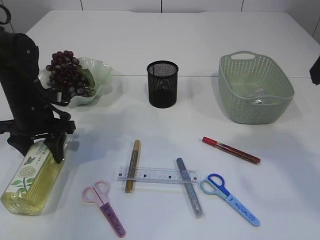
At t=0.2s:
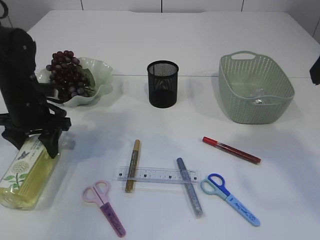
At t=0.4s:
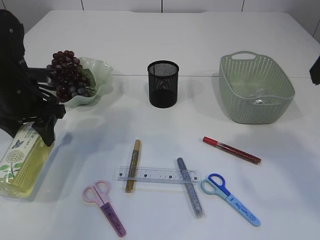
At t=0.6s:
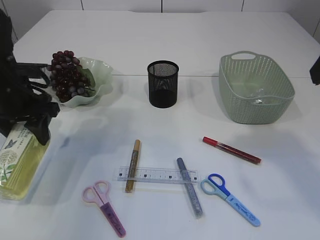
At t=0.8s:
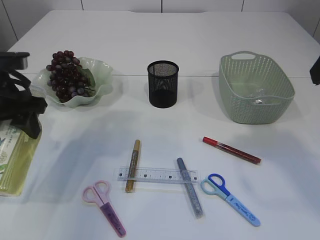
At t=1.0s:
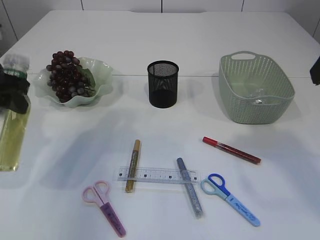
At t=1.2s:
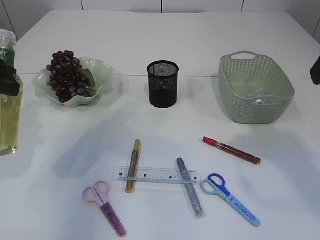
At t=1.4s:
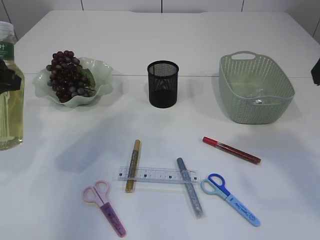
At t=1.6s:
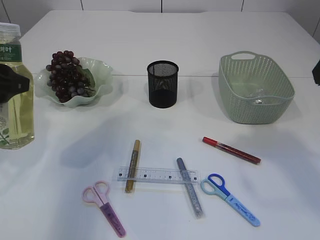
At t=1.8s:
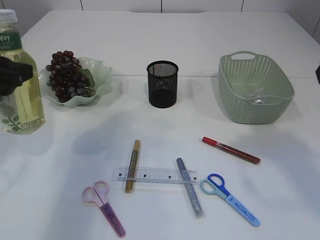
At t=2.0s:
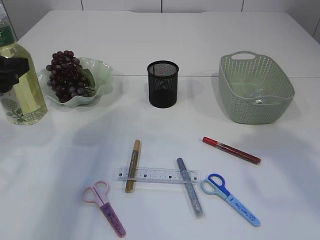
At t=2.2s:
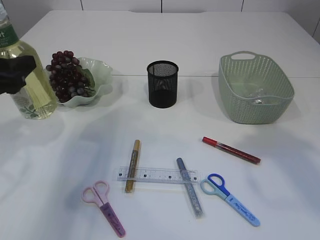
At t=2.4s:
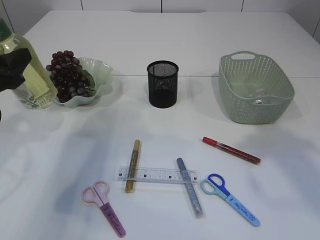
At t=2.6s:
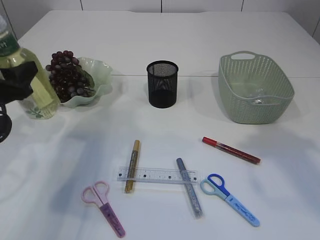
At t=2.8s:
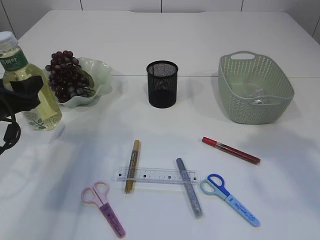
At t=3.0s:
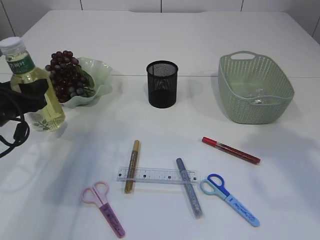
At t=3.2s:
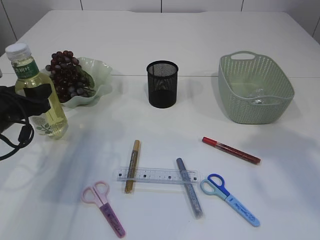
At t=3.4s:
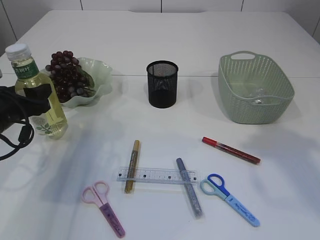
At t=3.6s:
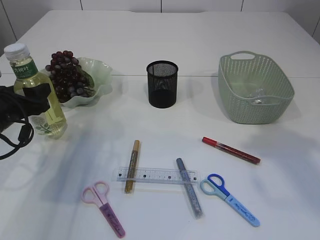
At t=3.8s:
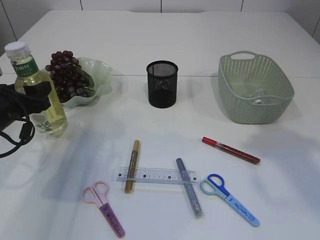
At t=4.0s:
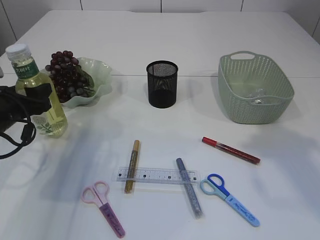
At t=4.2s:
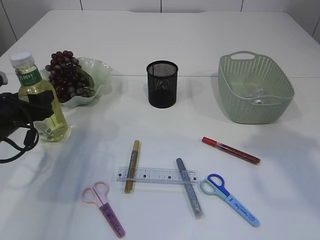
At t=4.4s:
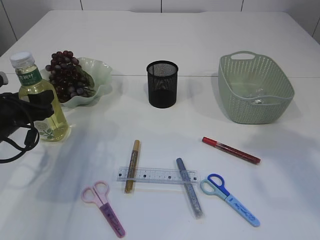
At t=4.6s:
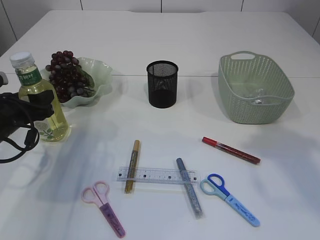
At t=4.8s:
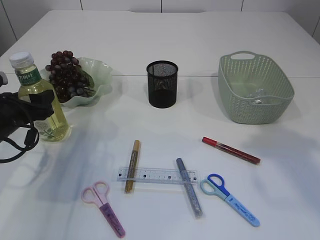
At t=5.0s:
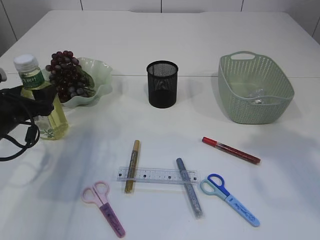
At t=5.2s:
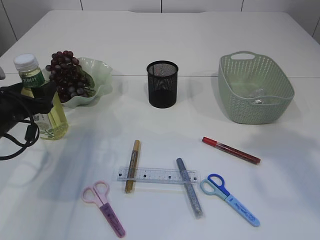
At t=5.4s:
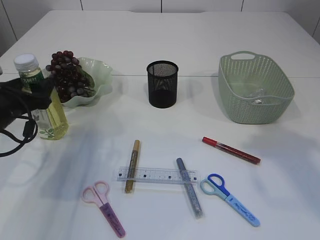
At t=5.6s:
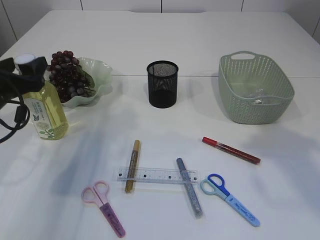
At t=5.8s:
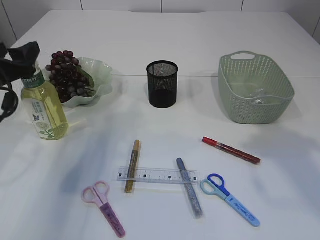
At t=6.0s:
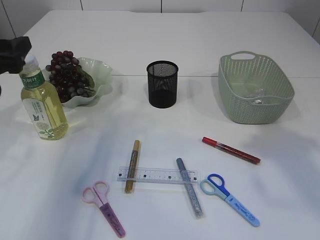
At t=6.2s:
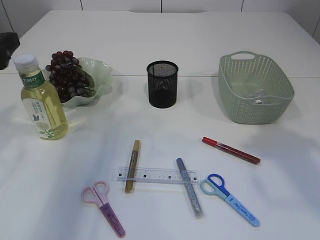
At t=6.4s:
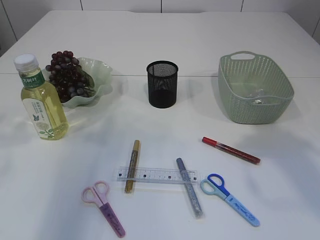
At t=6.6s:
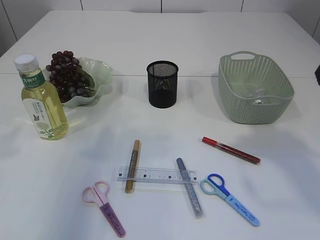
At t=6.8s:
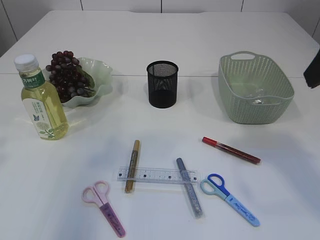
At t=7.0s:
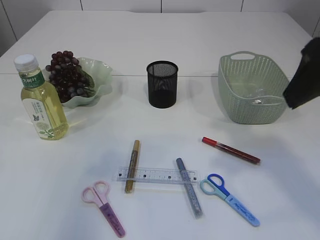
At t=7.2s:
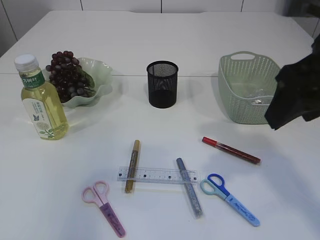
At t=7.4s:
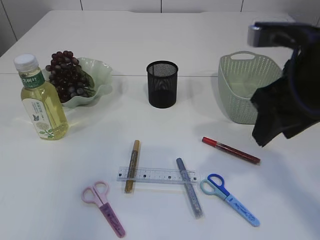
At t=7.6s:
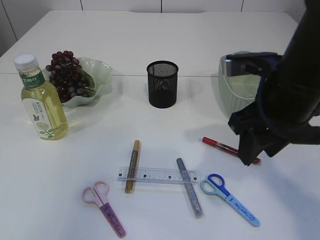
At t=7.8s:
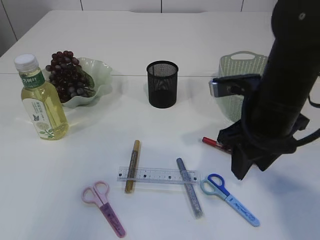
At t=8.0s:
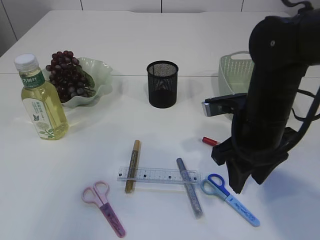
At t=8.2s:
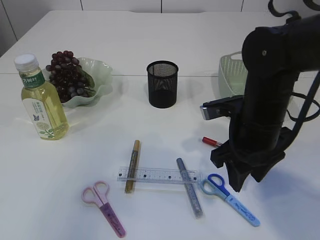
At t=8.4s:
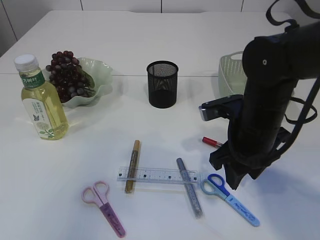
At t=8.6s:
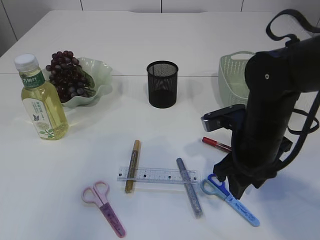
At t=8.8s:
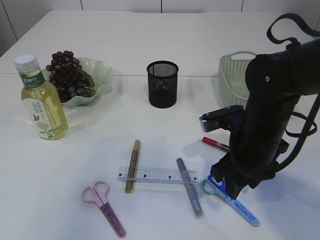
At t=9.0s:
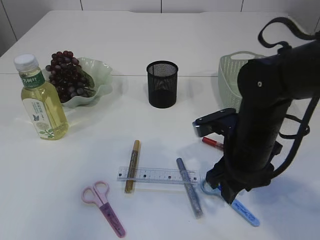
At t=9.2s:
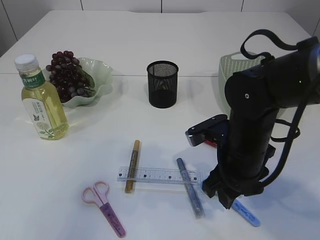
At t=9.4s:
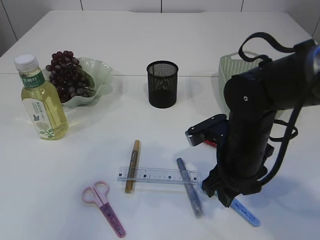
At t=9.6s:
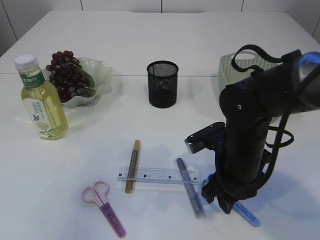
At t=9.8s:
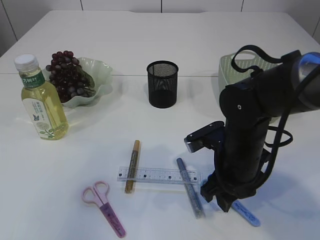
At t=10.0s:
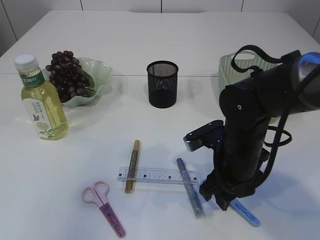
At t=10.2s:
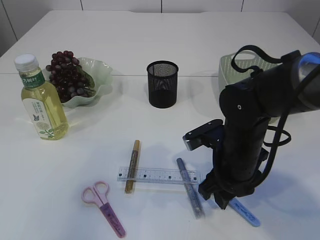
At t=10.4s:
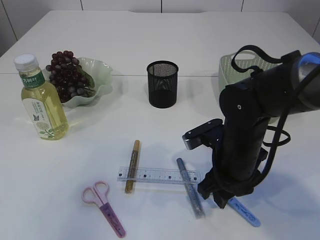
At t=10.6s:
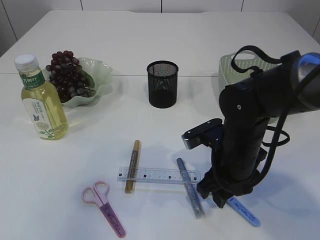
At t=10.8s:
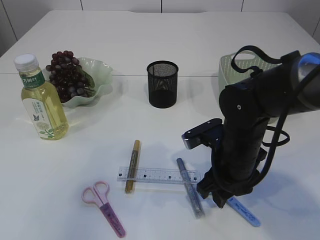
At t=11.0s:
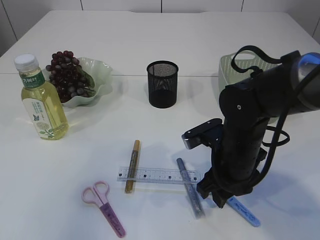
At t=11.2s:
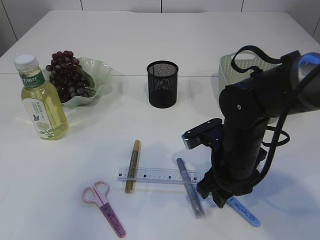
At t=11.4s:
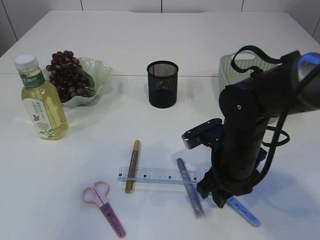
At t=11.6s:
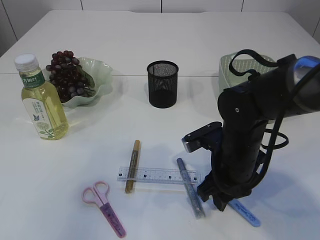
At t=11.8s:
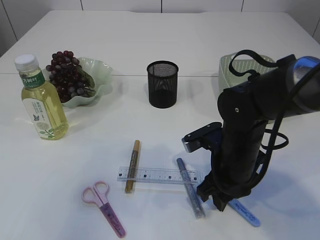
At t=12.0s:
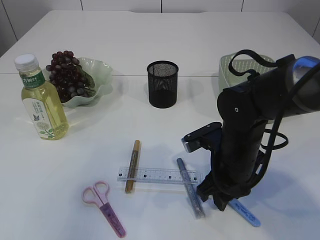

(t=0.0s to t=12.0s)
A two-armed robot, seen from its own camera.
Step, t=0.8s - t=6.0s: Place the bottle.
t=0.0s - t=1.6s: The left gripper travels upward and backward by roughly 15 cm.
t=1.6s - t=3.0s: The left gripper travels downward by about 10 cm.
t=3.0s - t=4.4s: There are only small adjustments of the grippers.
t=4.4s - t=6.0s: The left gripper is displaced upward by approximately 10 cm.
t=6.0s - t=7.6s: The left gripper is displaced backward and upward by about 20 cm; the right gripper heads downward and to the left, covering approximately 15 cm.
t=7.6s - t=9.0s: The right gripper moves downward, about 10 cm.
t=9.0s - t=10.4s: The grippers move only a little.
t=10.4s - t=12.0s: Both grippers stay put.

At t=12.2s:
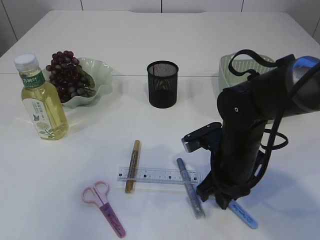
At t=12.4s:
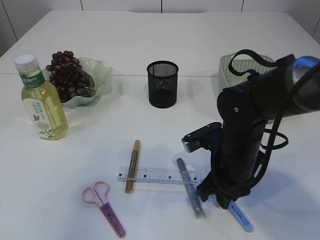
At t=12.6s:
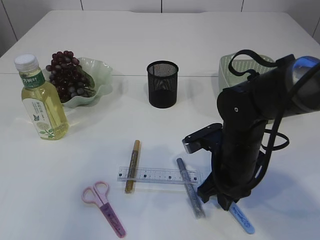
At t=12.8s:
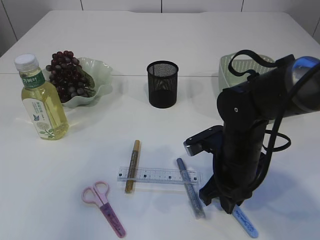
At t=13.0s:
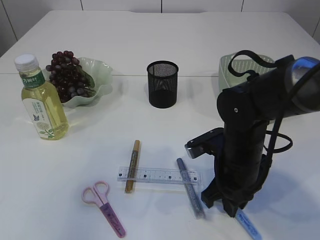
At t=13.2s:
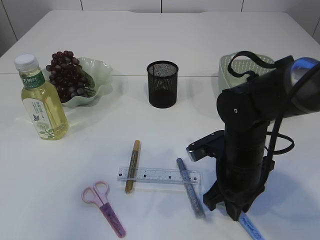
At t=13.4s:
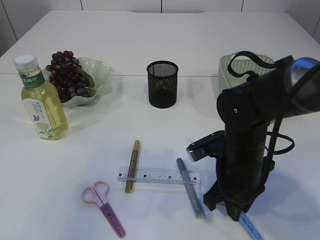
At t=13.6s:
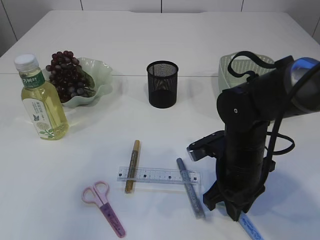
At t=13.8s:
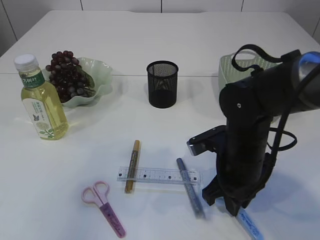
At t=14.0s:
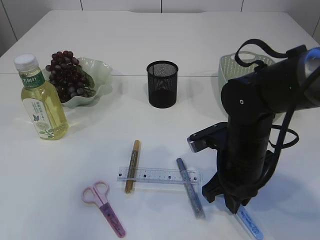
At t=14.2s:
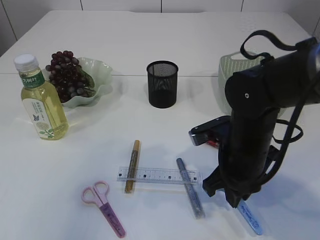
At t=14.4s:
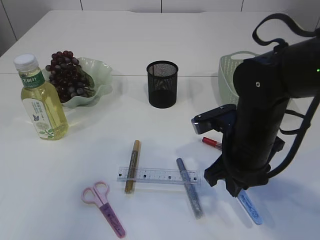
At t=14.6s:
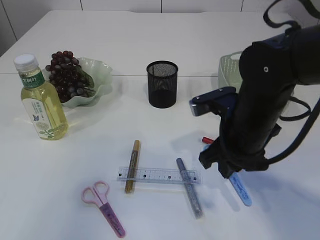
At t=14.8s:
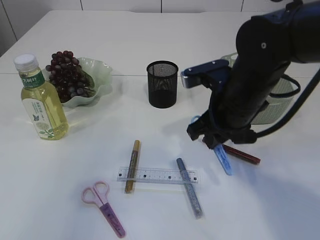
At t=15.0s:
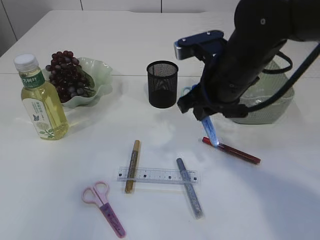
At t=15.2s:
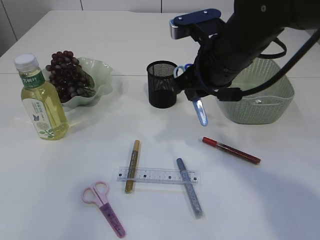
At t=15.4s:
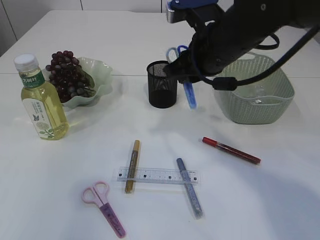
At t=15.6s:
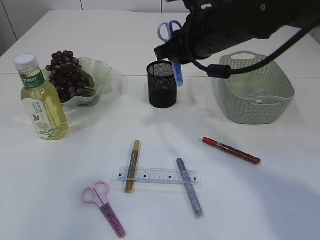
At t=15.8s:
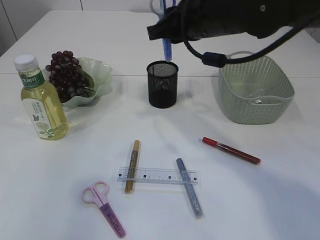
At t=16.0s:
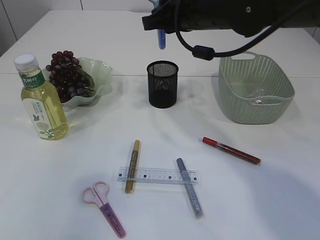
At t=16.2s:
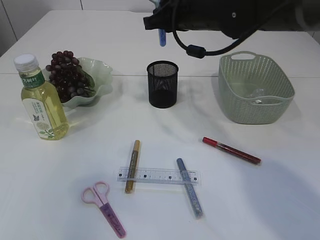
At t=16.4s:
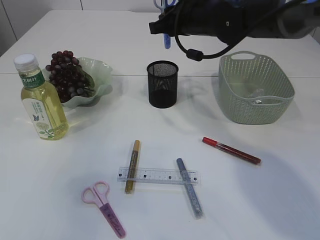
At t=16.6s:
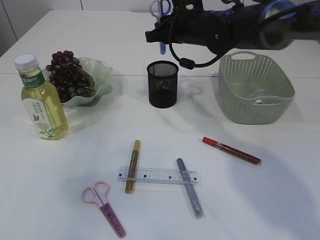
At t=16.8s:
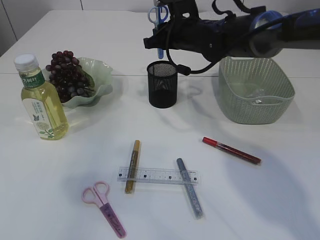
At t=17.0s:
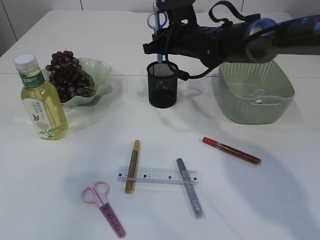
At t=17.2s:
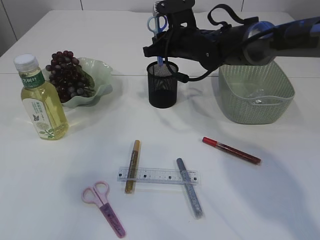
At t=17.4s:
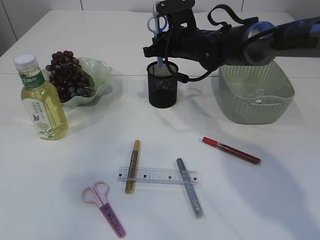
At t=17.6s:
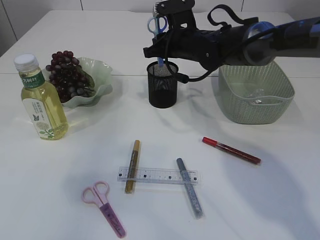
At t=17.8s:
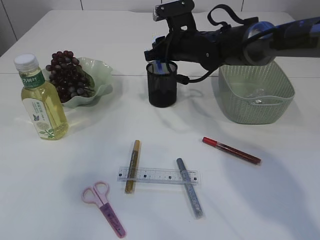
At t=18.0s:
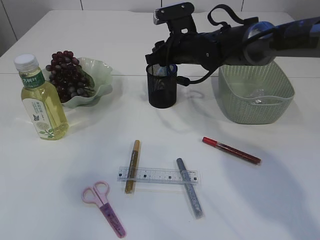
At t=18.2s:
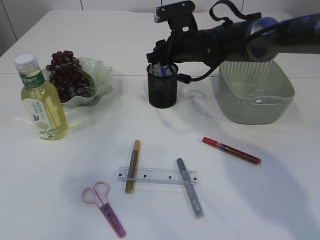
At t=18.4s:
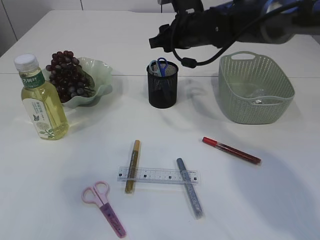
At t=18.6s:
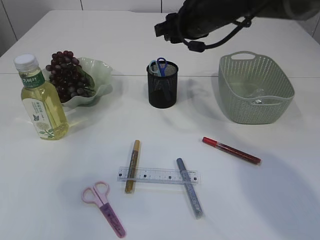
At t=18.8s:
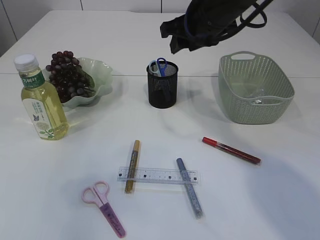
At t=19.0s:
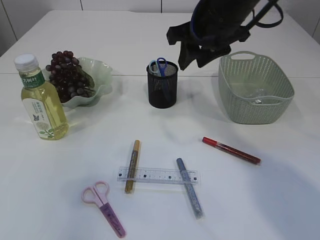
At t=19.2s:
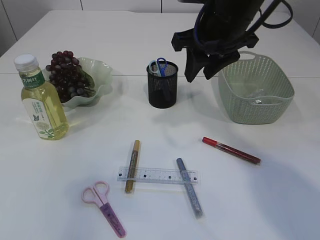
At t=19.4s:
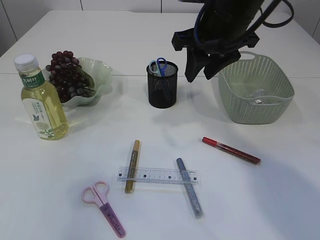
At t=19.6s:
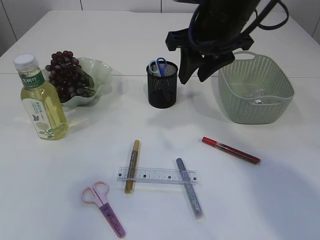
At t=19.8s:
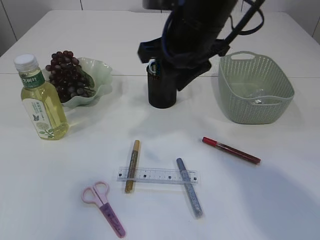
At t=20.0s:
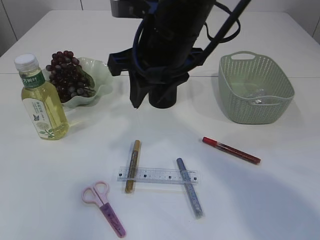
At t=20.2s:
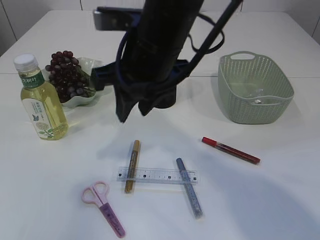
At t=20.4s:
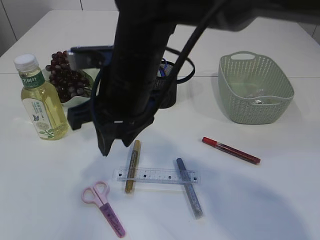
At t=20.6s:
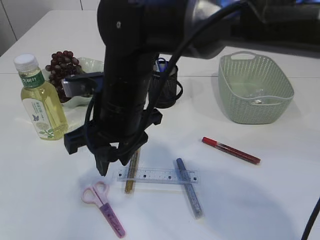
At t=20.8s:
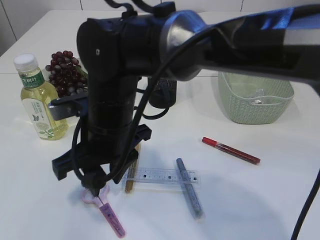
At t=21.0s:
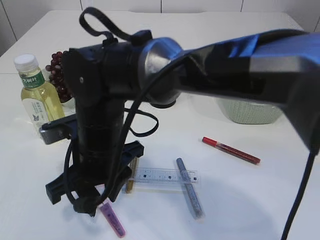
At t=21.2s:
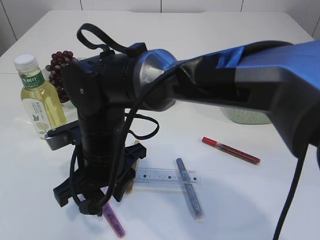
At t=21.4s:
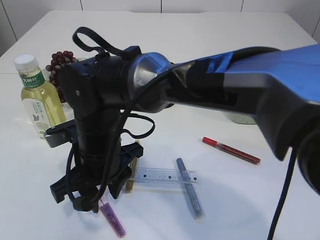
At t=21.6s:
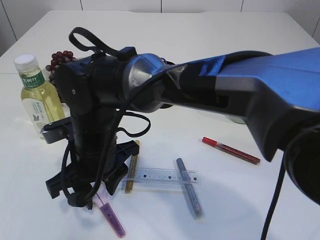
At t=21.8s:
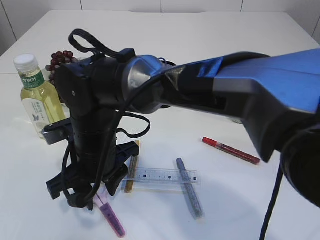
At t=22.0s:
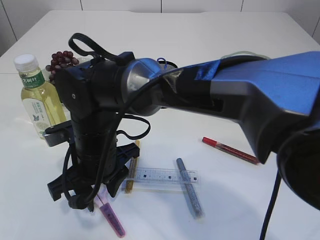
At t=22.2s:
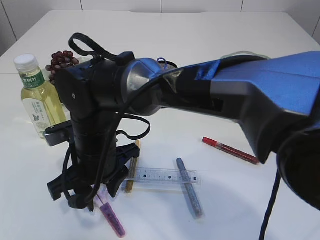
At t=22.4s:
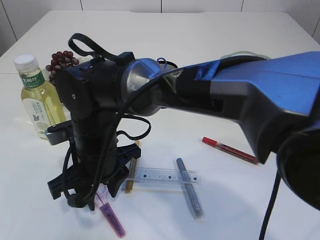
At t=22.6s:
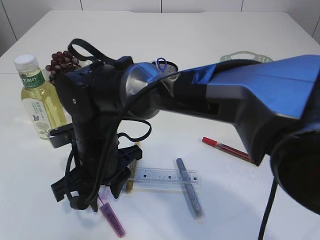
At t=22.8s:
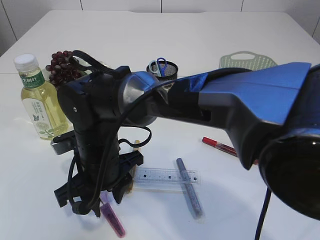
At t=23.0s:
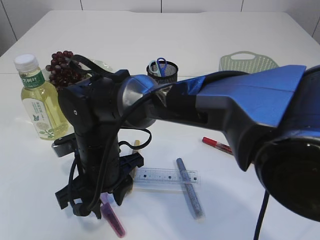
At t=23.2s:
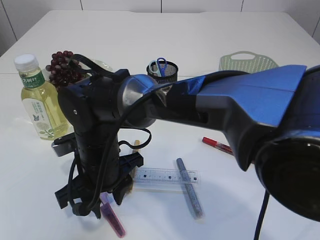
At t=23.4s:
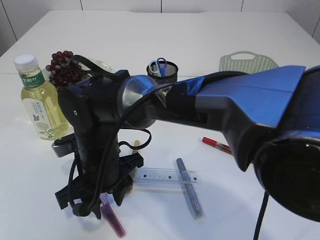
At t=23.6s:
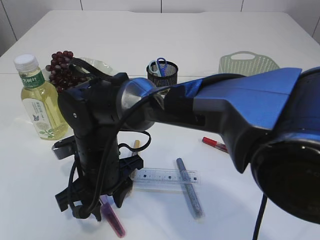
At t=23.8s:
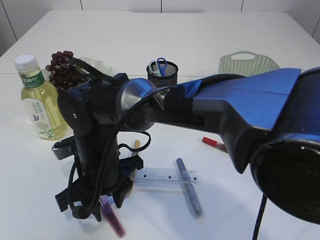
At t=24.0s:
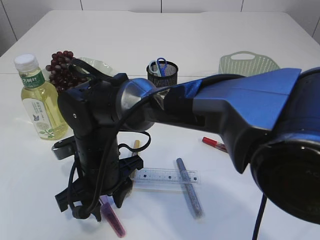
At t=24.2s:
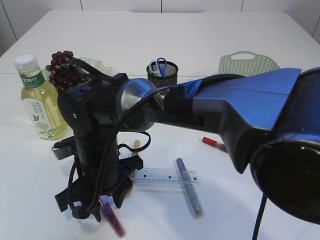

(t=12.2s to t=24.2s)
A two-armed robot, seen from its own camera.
Step, t=12.2s - t=14.6s: pick up the blue scissors.
Step, t=14.8s - t=18.2s: Place the blue scissors into the pen holder.
t=12.2s - t=13.8s: There are only small adjustments of the grippers.
t=13.8s - t=15.2s: The right gripper heads upward and forward, covering about 15 cm.
t=15.2s - t=16.6s: The right gripper is displaced forward by roughly 15 cm.
t=16.6s - t=18.2s: The grippers stay close to where they were, moving slightly.
t=18.2s - t=19.8s: The right gripper travels backward and upward by some 15 cm.
t=19.8s - t=21.2s: The right gripper is displaced to the left, downward and backward by some 20 cm.
